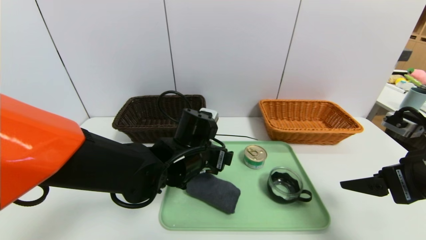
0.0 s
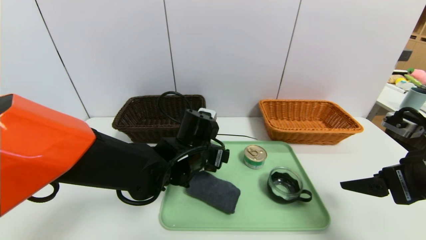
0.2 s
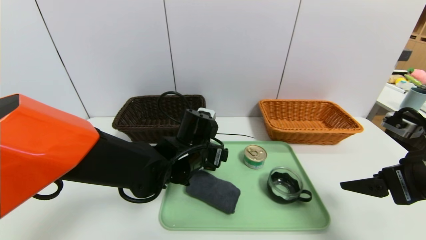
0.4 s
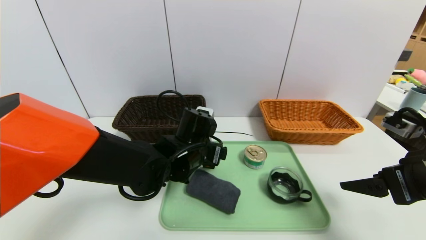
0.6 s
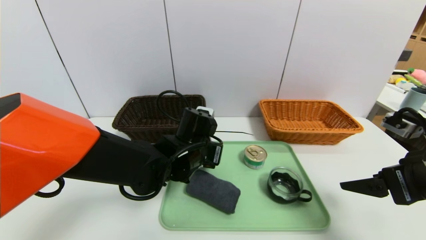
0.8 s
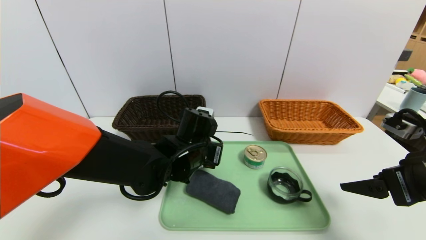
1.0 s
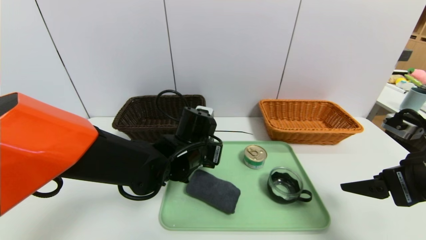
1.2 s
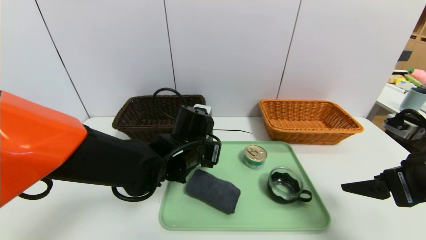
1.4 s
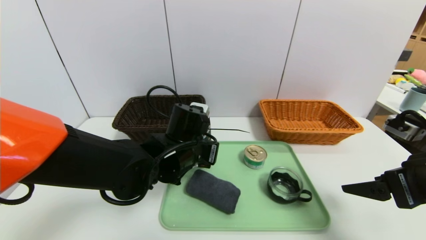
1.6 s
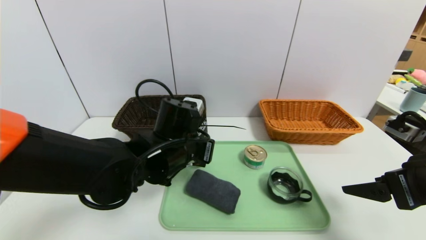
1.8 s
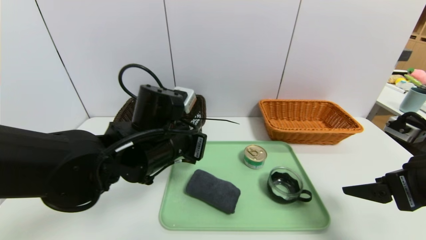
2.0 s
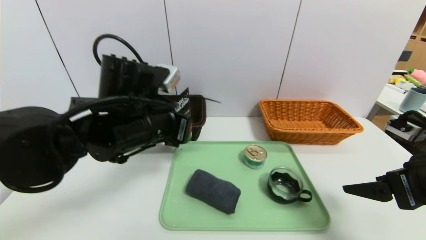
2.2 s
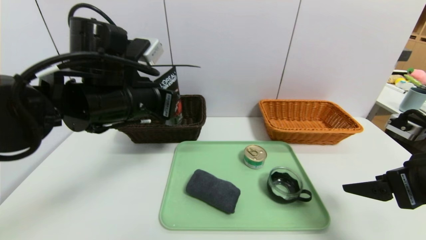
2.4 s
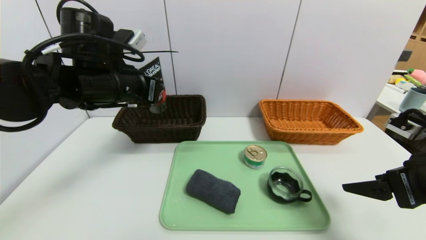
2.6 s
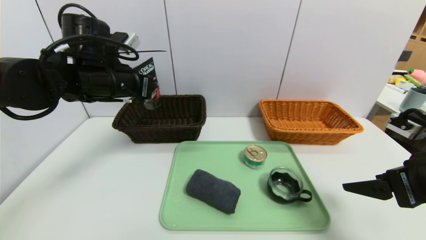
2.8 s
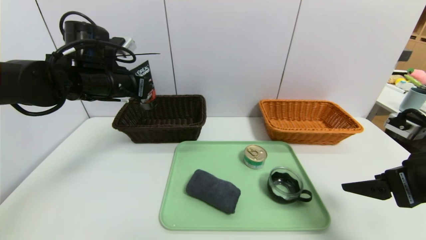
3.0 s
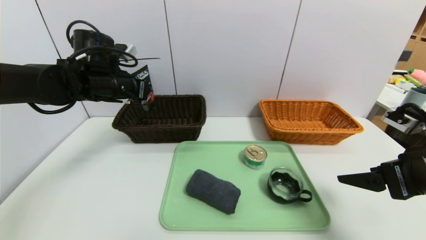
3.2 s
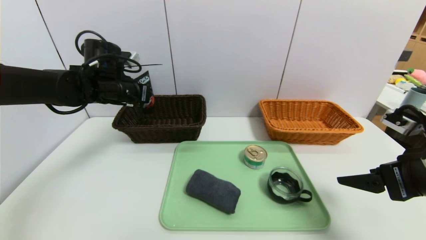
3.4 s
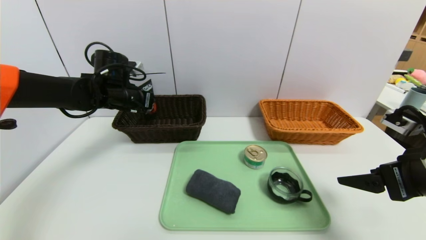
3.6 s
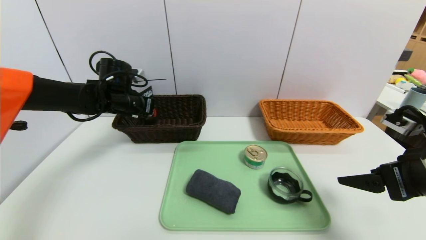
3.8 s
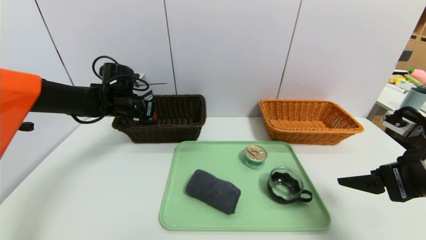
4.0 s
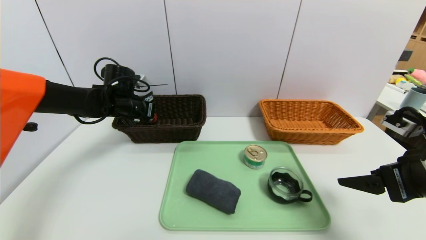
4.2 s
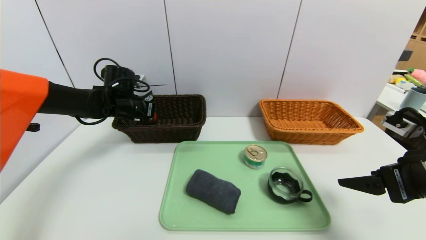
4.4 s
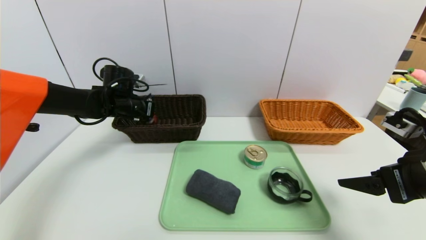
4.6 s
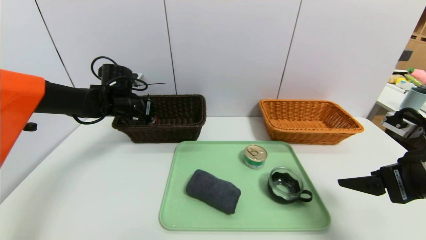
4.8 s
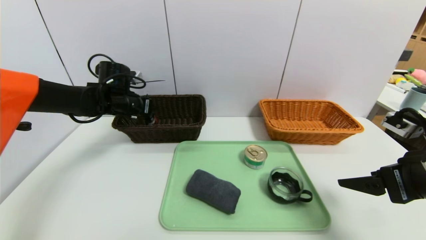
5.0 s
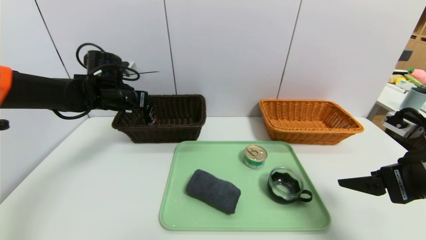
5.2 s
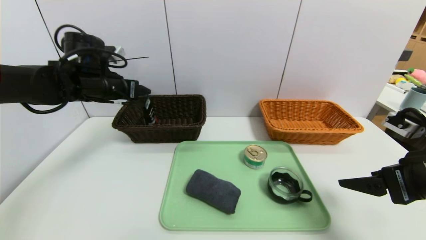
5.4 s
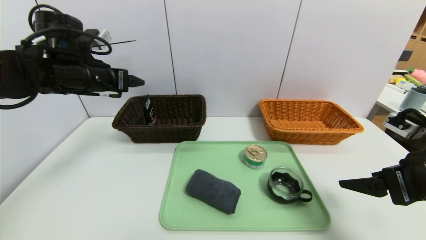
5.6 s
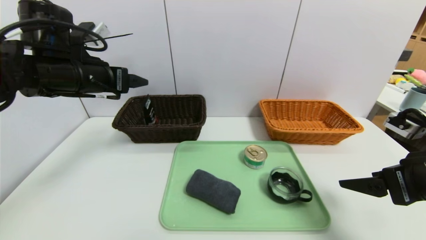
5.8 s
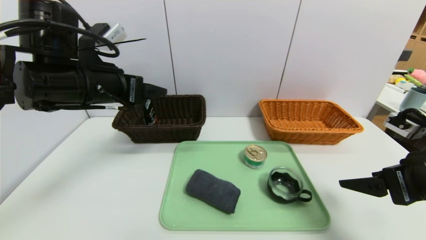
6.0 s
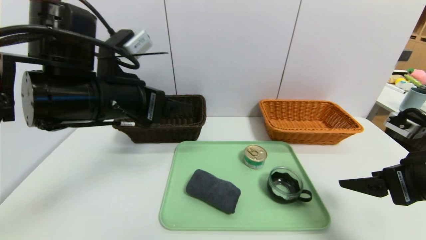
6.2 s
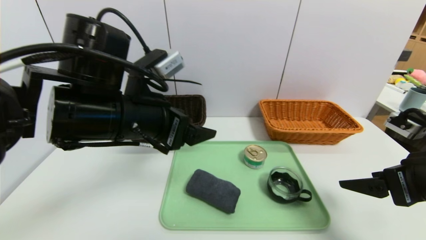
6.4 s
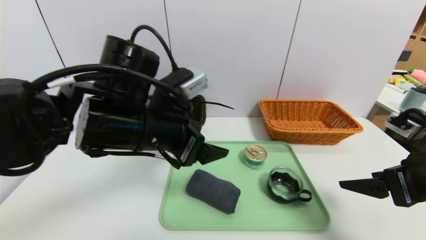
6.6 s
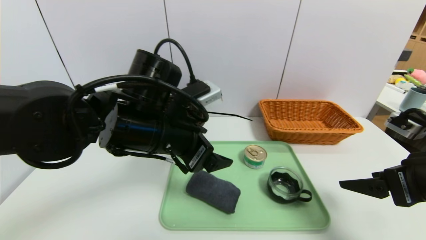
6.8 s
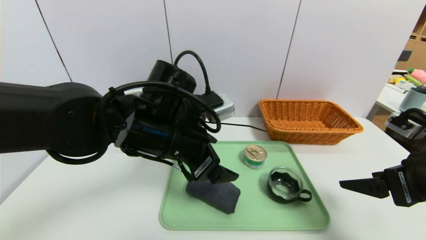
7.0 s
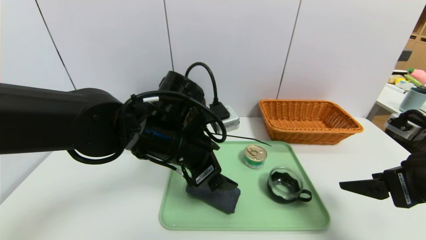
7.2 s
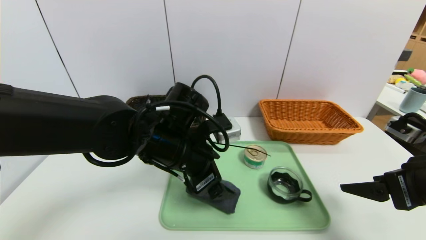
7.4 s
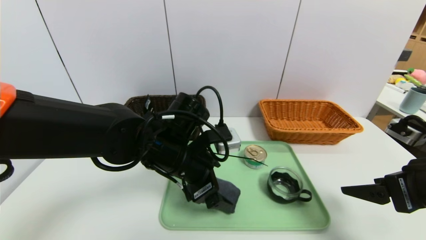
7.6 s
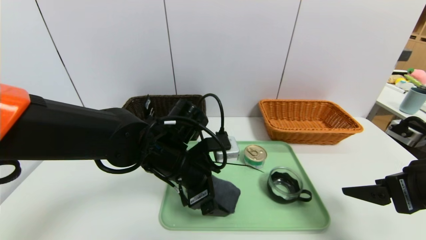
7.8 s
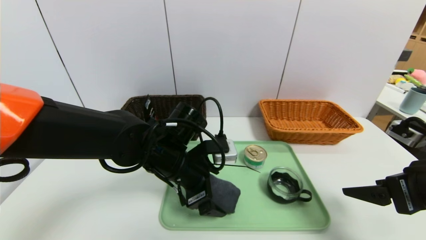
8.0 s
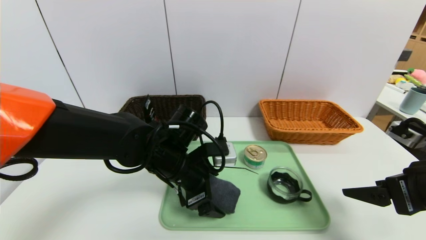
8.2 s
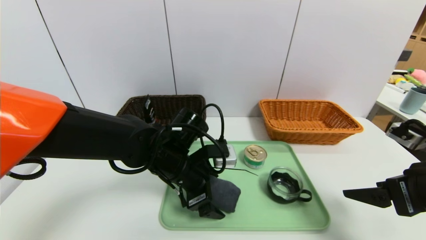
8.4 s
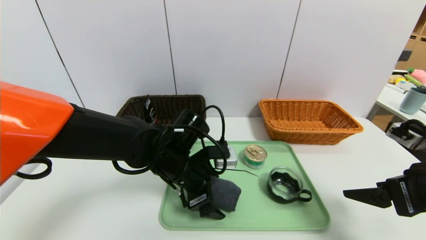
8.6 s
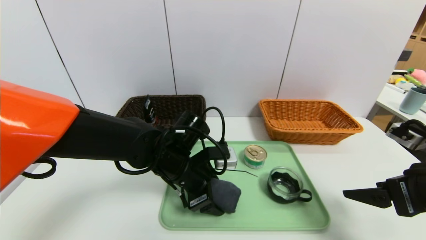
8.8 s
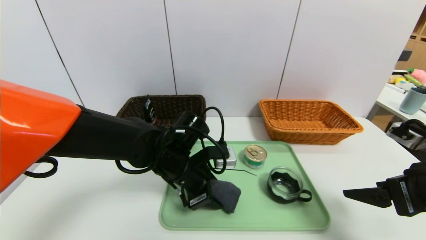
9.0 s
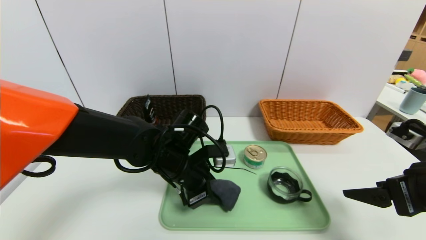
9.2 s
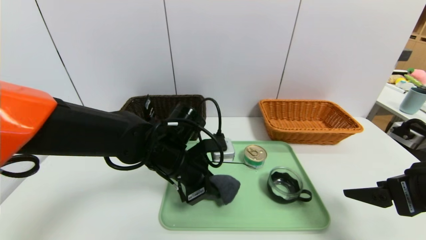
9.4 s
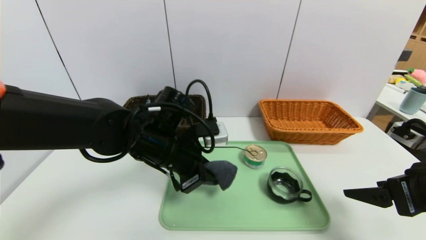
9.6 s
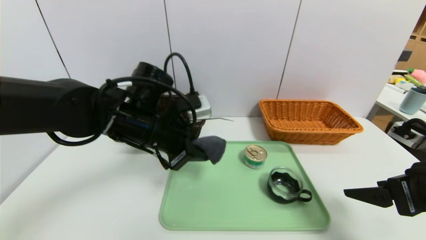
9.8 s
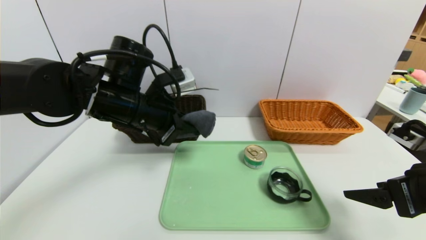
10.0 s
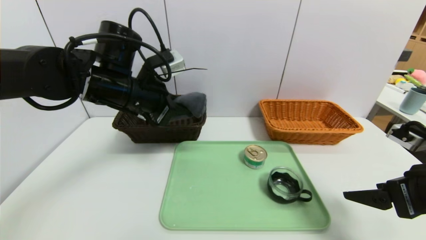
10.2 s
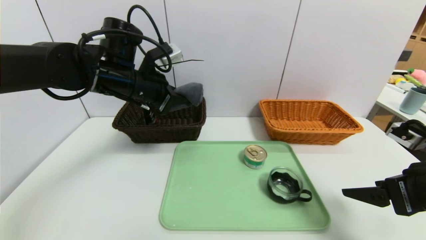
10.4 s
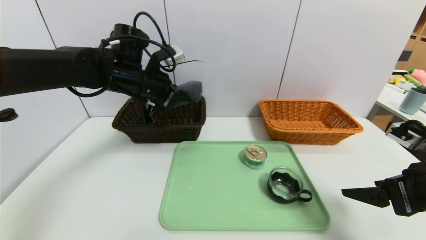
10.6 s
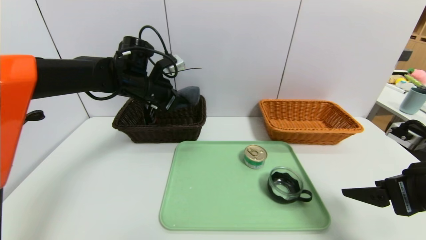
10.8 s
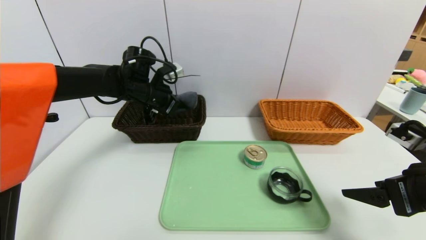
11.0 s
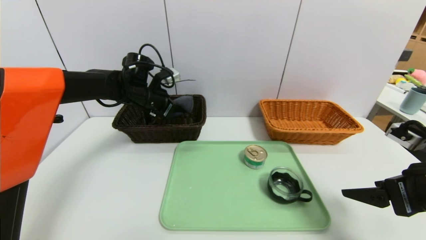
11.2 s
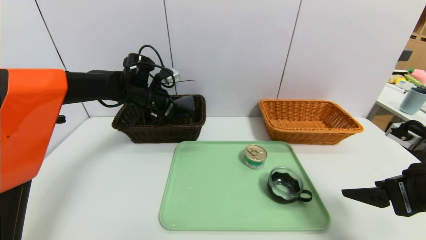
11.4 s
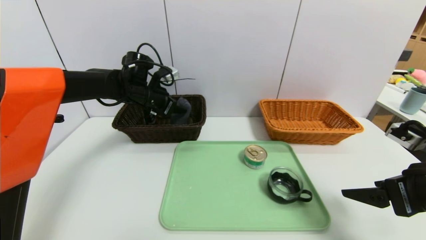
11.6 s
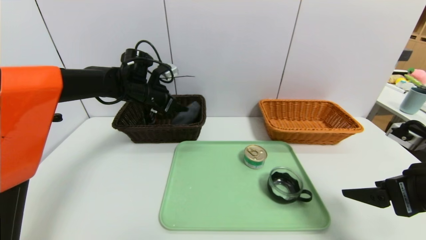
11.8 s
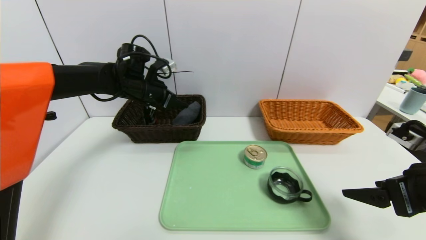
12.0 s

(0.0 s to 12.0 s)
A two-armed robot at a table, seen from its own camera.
Task of the whole recording: place the food in the right basket with the right gripper, and place the non food items in the left basket with the left gripper.
Step, 0.0 s - 5.6 s: Grasp the soft cleanser and put it in the left basket.
0.0 s - 1.6 s: The left gripper closes its fingers.
1.6 s - 3.0 s: The left gripper goes roughly 20 cm to the left, upward and forward.
3.0 s - 4.4 s: The left gripper shifts approximately 15 cm downward and forward.
4.4 s - 6.0 s: The left gripper is displaced backward and upward by about 20 cm, and opens up.
6.0 s - 7.6 s: The left gripper goes approximately 20 cm to the right and downward.
7.6 s - 9.0 s: The left gripper closes up.
9.0 s - 10.4 s: The left gripper heads upward, to the left and forward, covering some 20 cm, and closes up.
10.4 s - 12.0 s: The left gripper travels forward by about 10 cm, and opens its fingers.

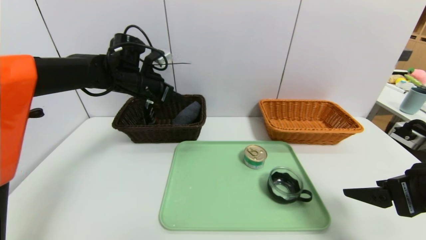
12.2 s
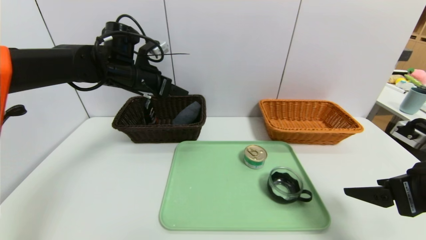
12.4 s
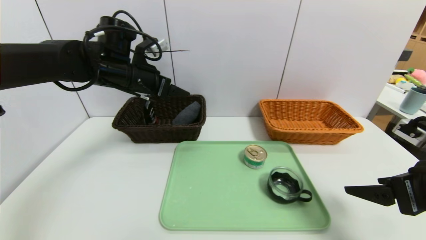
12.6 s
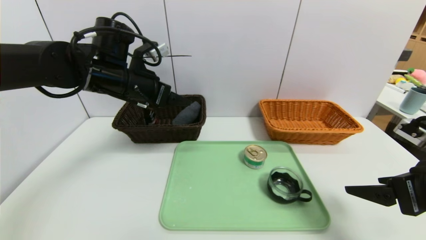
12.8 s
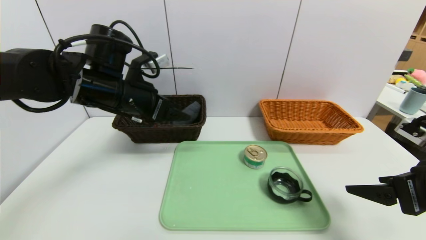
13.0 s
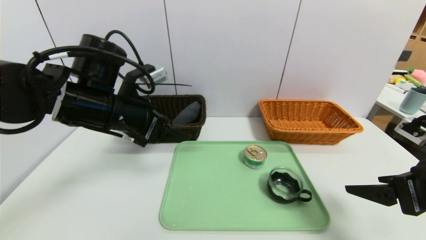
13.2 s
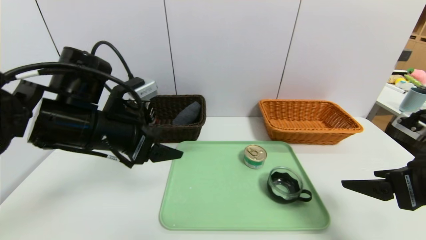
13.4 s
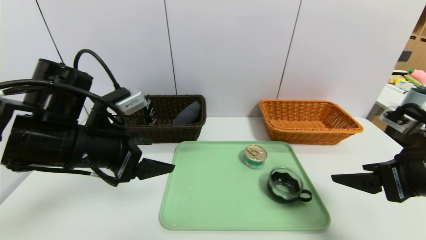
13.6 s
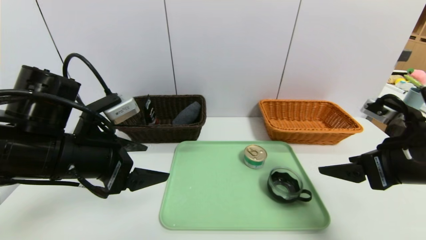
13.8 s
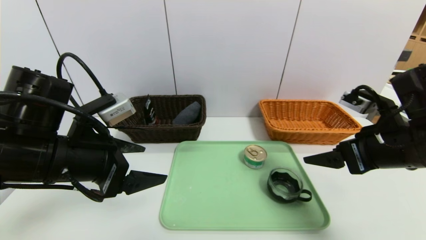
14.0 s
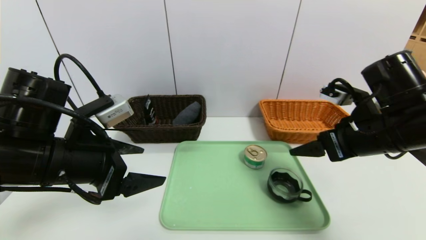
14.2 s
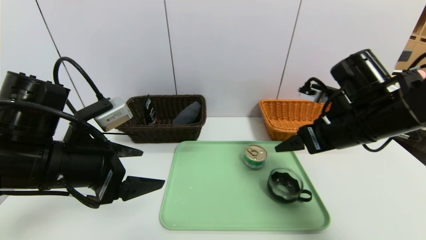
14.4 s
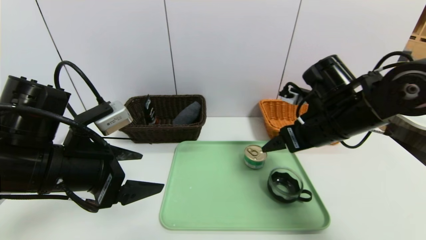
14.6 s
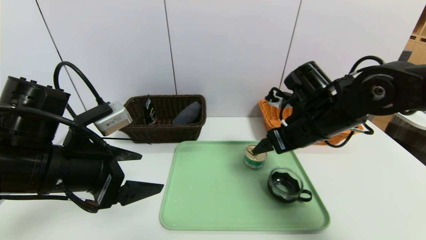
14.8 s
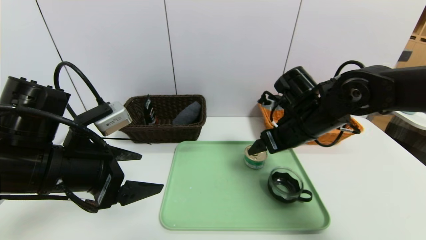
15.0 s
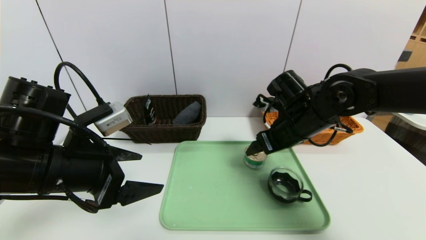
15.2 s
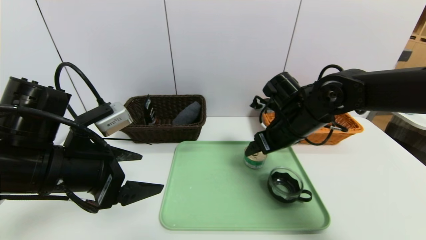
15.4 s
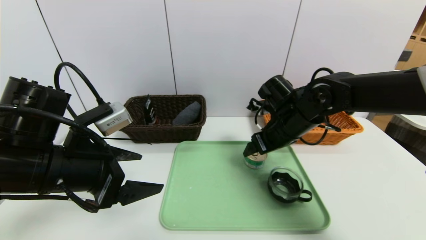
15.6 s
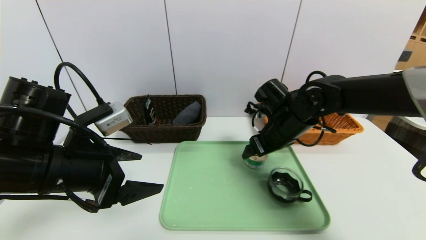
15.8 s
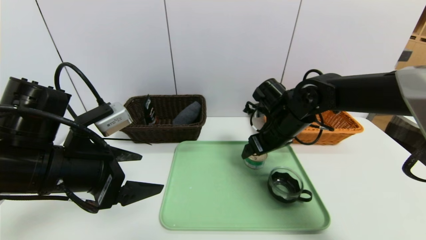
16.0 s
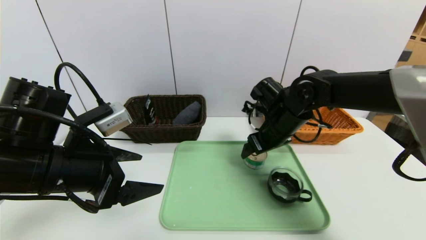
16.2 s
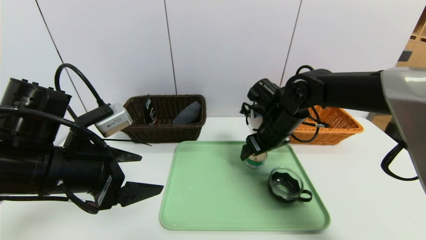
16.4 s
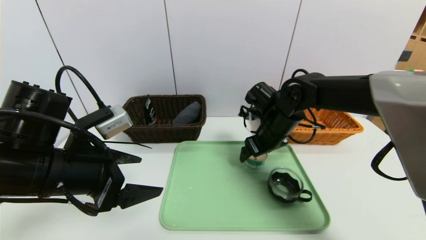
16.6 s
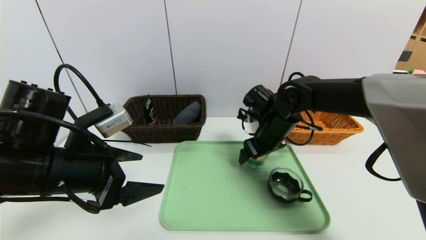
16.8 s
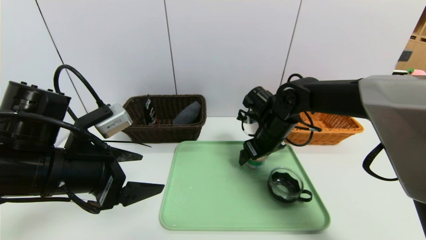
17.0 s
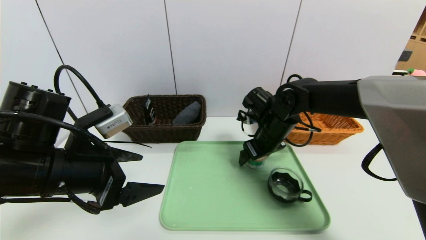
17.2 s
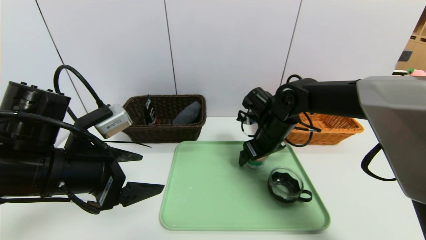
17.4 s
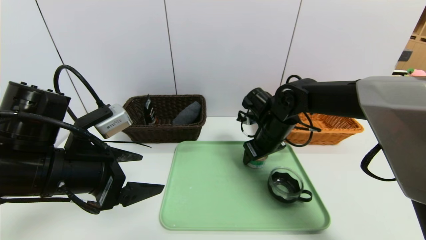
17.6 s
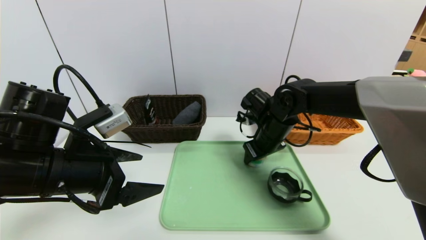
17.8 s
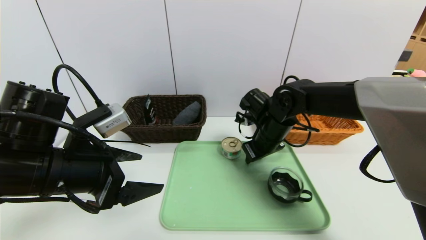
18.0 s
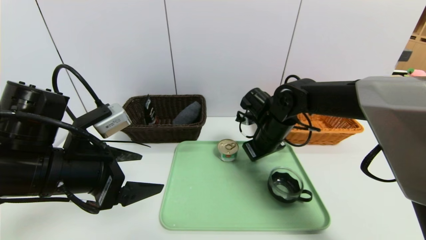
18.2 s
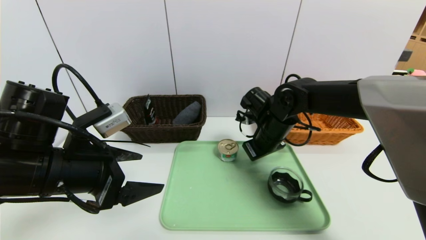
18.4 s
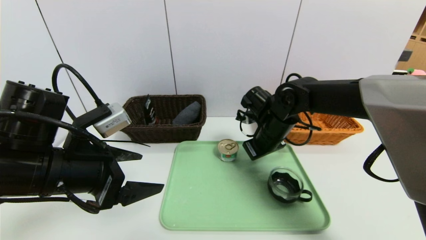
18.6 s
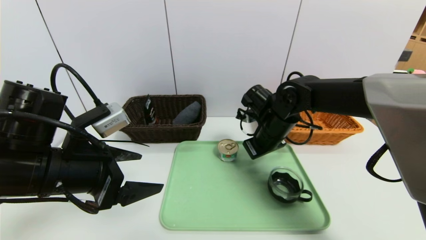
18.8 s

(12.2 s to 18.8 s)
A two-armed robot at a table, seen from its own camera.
Task of the whole recording: place the food in the right basket with the right gripper, and place the non food items in the left basket with the left gripper.
12.2 s - 13.8 s: The left gripper is displaced backward by some 20 cm.
13.8 s - 15.4 s: The right gripper goes approximately 20 cm forward and to the left.
15.4 s - 17.2 s: The right gripper moves some 5 cm.
17.2 s - 18.8 s: The right gripper closes up.
